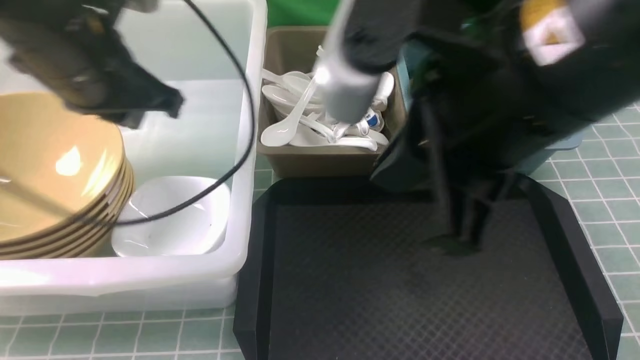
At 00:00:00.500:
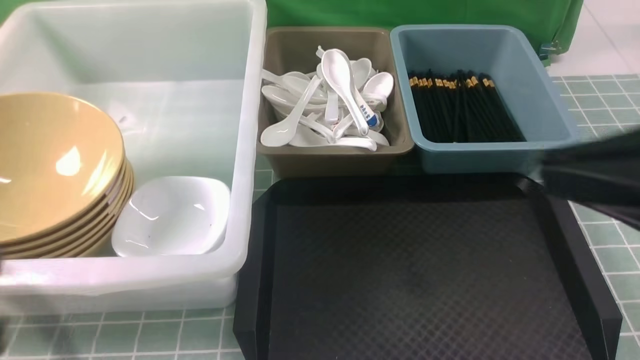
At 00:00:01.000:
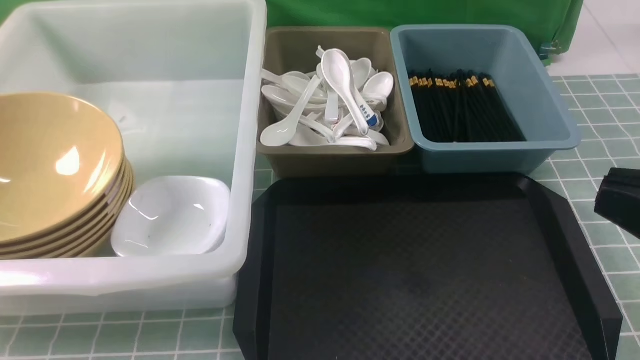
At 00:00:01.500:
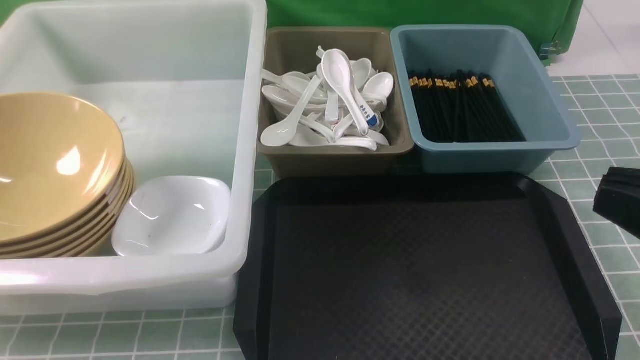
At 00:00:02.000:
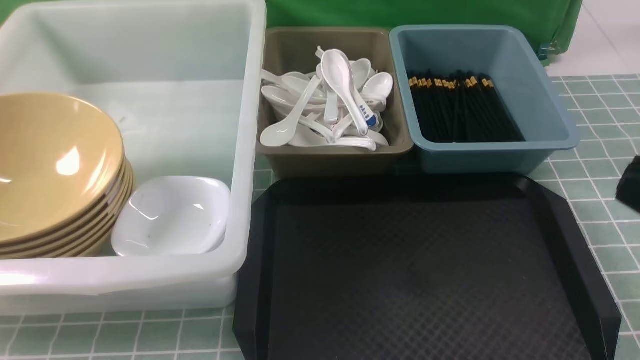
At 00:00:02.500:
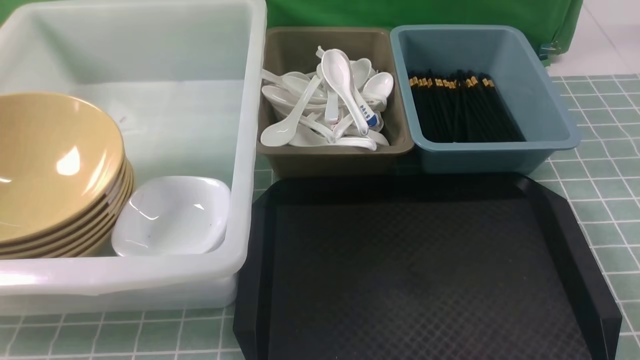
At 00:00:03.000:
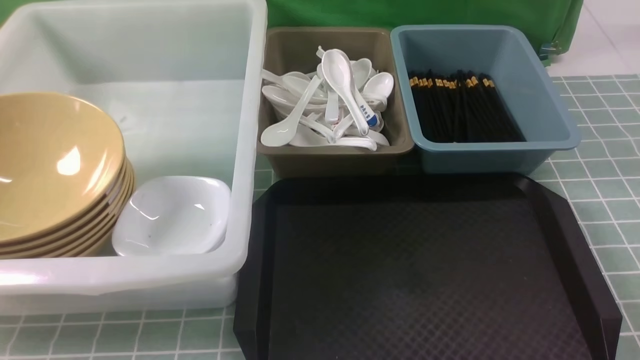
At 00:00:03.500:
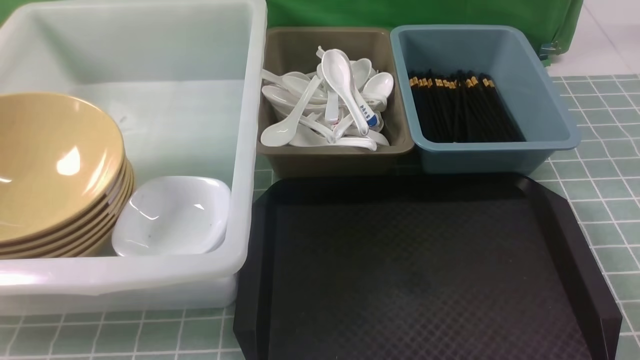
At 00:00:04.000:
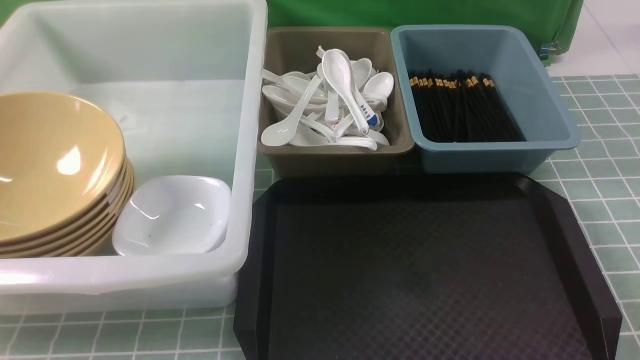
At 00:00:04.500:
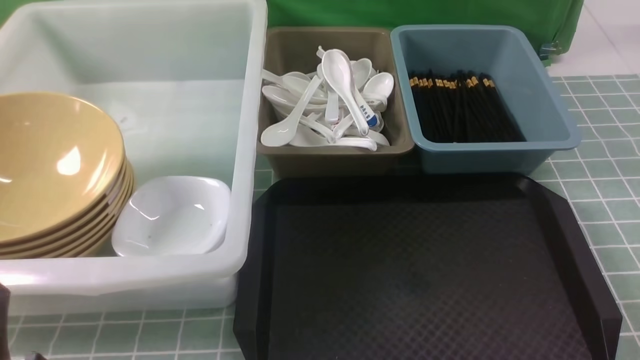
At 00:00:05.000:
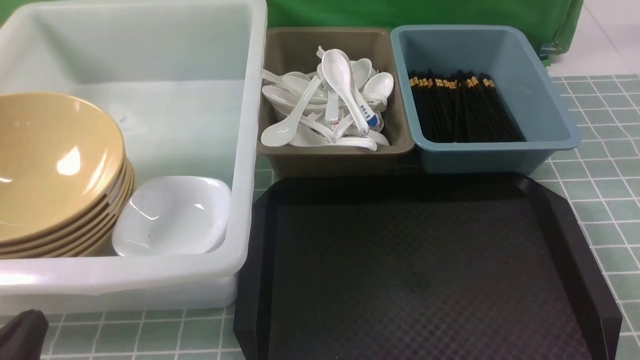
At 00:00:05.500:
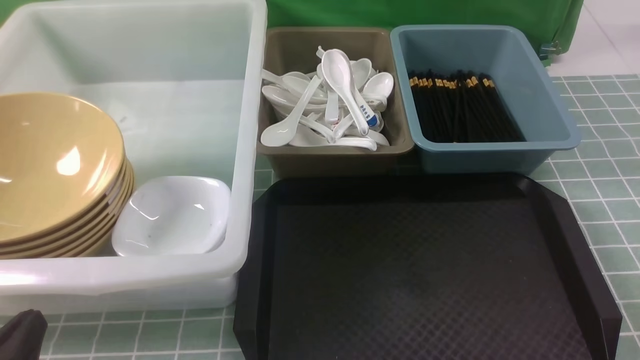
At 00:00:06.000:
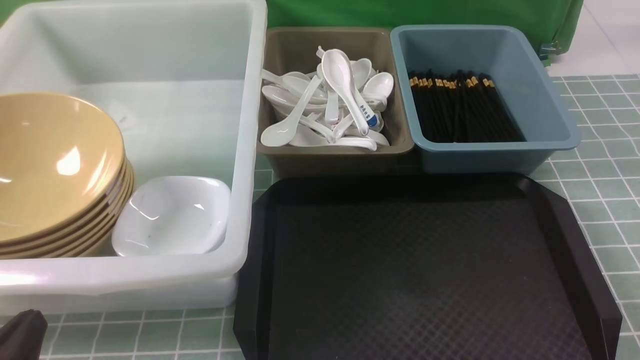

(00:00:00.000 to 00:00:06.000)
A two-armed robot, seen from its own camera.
Task of the whole recording: on blue table put chopsticks spoon bowls plates into blue grey white boxes.
00:00:00.000 - 00:00:02.000: The right gripper heads to the right, backward and downward, covering some 20 cm, while the left gripper goes roughly 25 cm backward.
00:00:02.000 - 00:00:04.000: The right gripper is displaced downward by some 20 cm.
00:00:04.000 - 00:00:06.000: The left gripper travels downward by about 10 cm.
